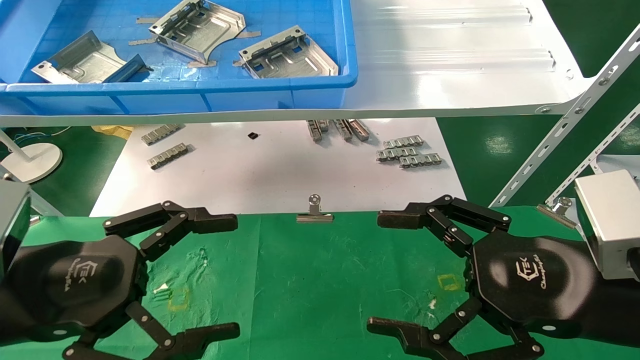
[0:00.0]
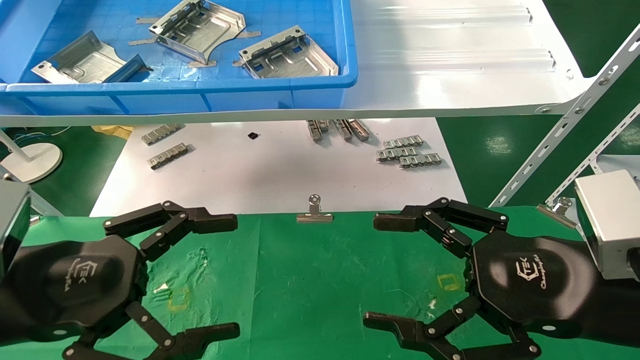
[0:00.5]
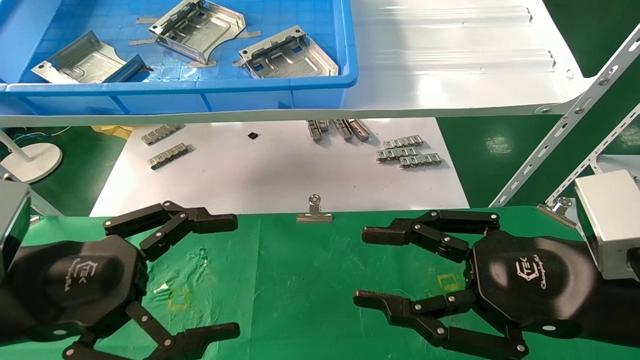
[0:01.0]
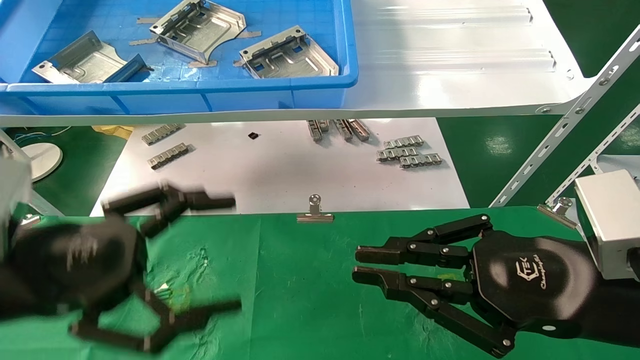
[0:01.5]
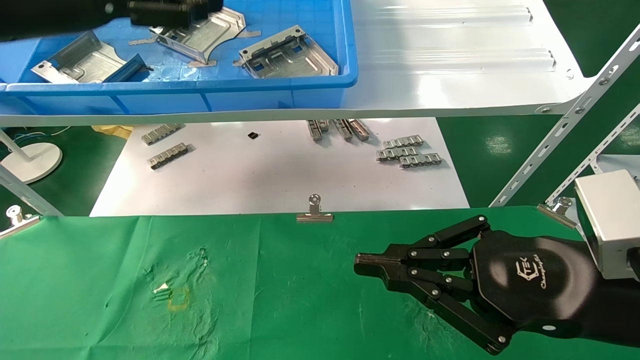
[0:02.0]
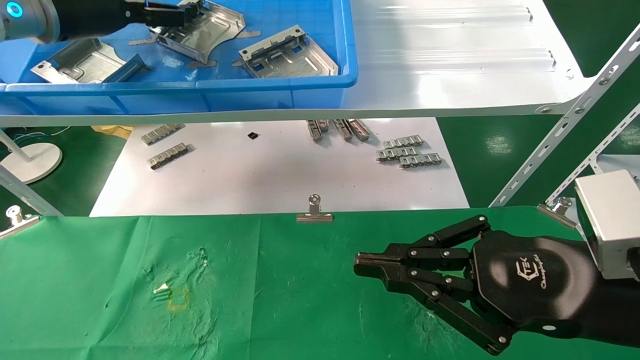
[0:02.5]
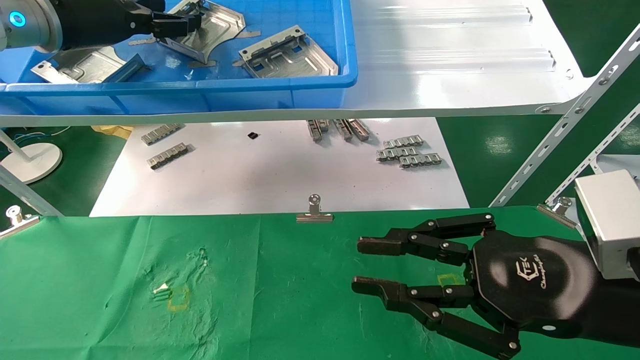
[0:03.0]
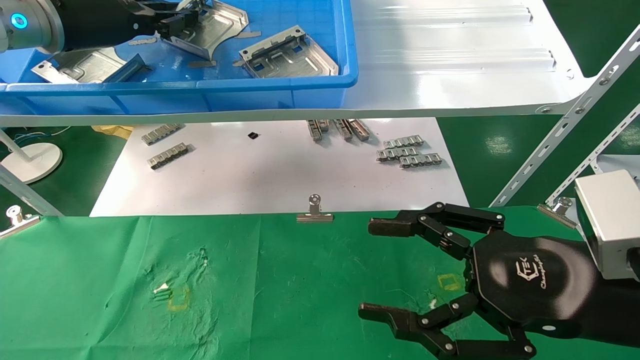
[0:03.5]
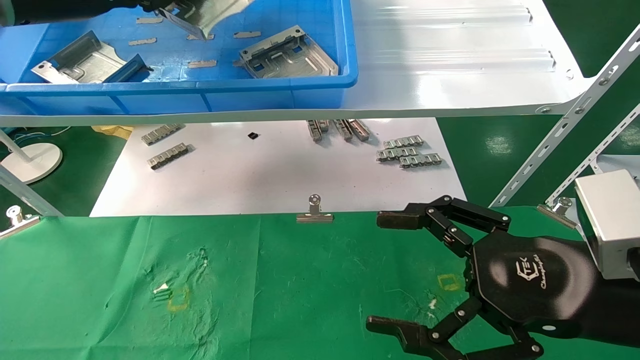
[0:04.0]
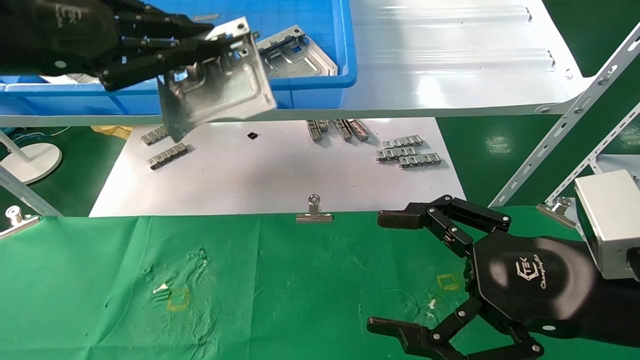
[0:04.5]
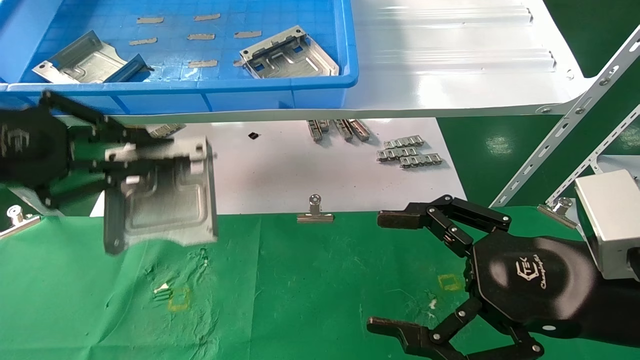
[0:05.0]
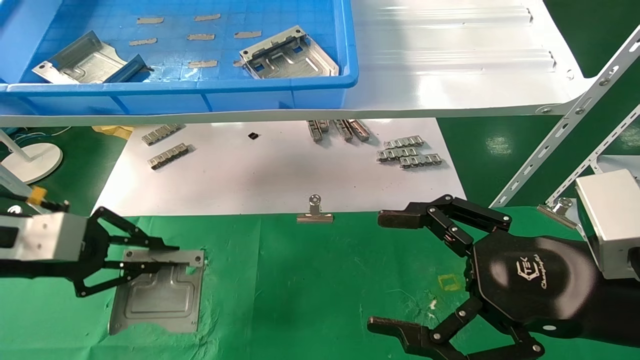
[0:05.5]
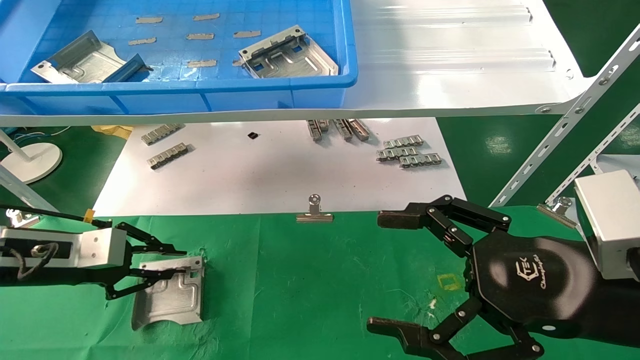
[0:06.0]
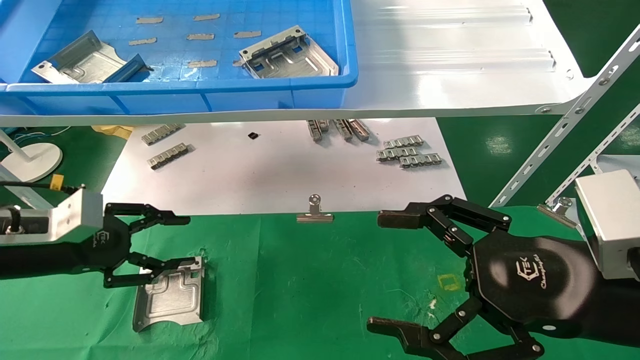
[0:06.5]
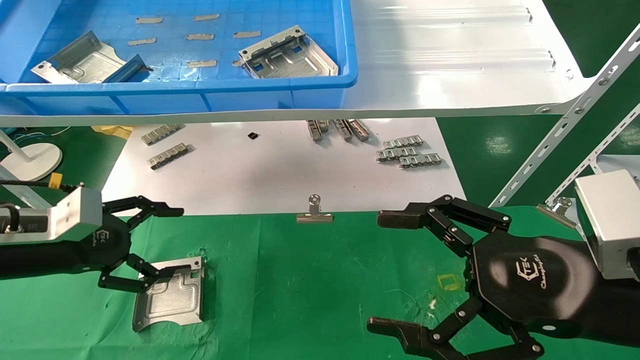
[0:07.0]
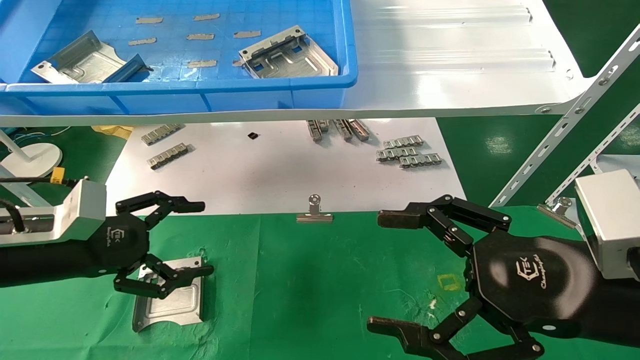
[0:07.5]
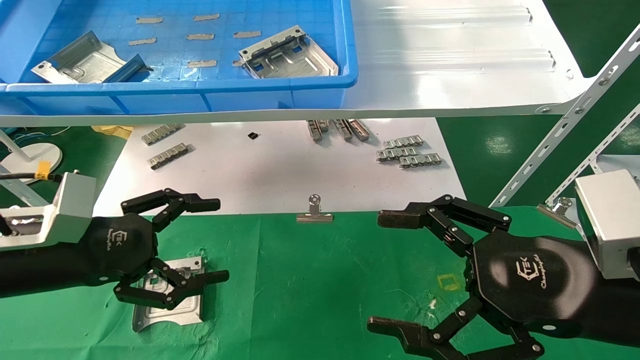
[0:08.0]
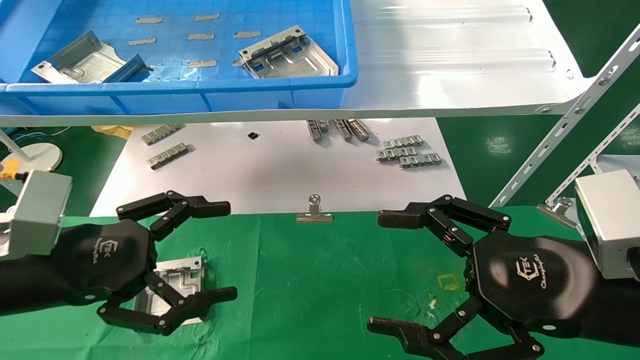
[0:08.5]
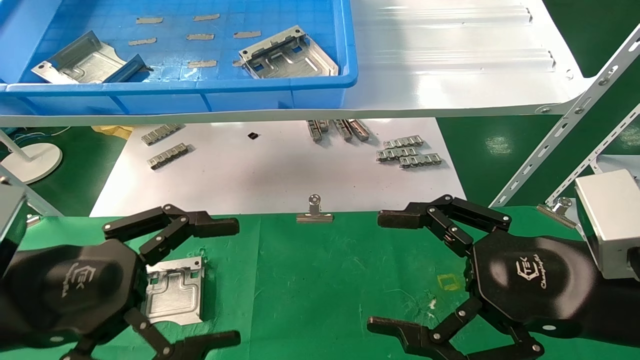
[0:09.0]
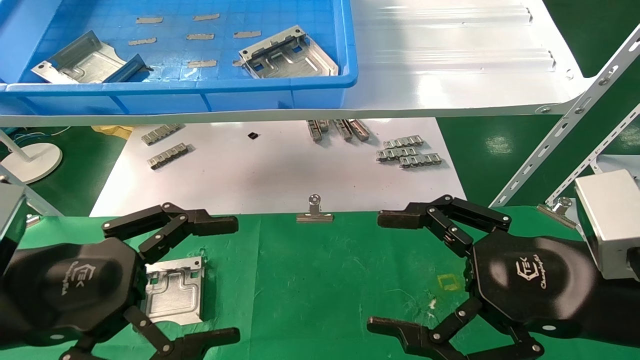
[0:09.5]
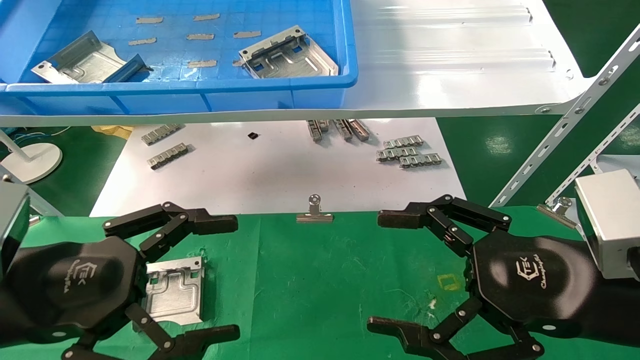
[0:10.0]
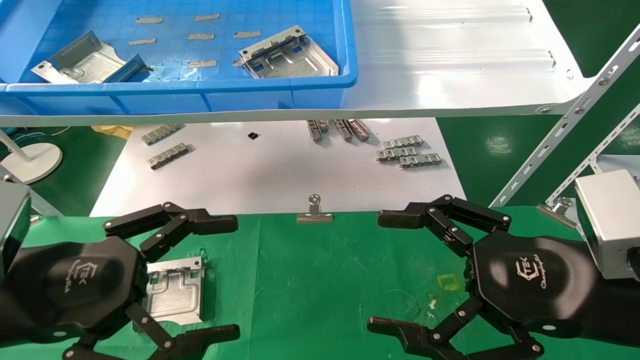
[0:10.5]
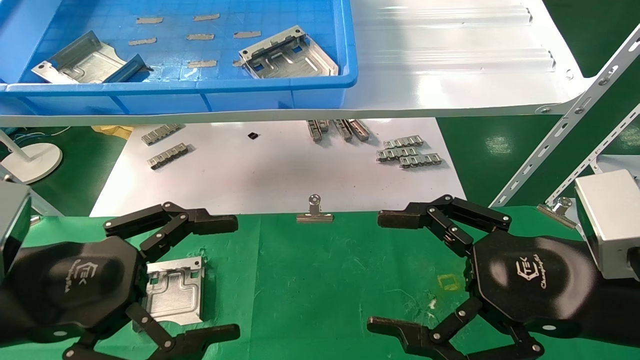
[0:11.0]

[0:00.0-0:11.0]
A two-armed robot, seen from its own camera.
Task of the whole recording: use the mechanical arm to pick up the parts and place them on the table.
Step, 0:02.0 to 0:03.5: Pick up the hard drive bracket from the feeding area.
Step, 0:04.0 to 0:06.0: Place the hard drive bracket into the box.
0:00.0 to 0:02.0: The right gripper closes. Meanwhile the left gripper goes roughly 25 cm upward and forward.
0:02.0 to 0:03.5: The left gripper moves forward, about 5 cm, and closes up. Meanwhile the right gripper opens up.
0:03.5 to 0:05.5: The right gripper opens its fingers. The left gripper travels downward and backward by about 25 cm.
0:05.5 to 0:07.5: The left gripper changes place by about 5 cm, and opens its fingers.
0:07.5 to 0:09.0: The left gripper heads backward and to the right, covering roughly 15 cm.
0:09.0 to 0:11.0: The two grippers keep their place.
